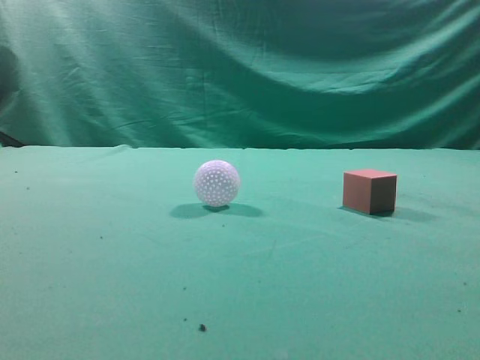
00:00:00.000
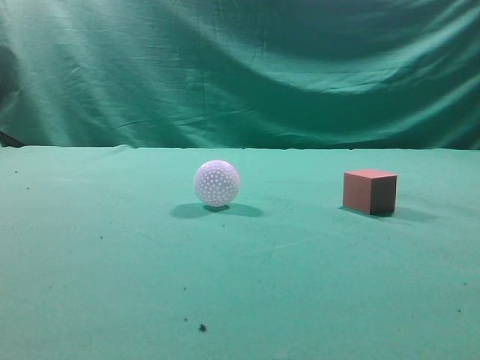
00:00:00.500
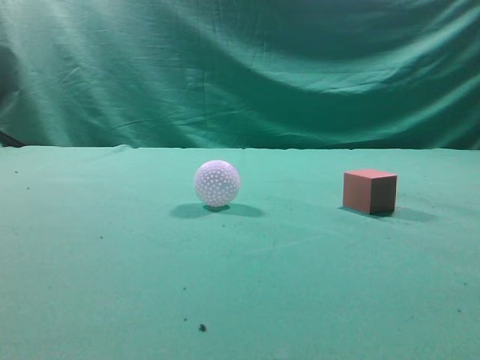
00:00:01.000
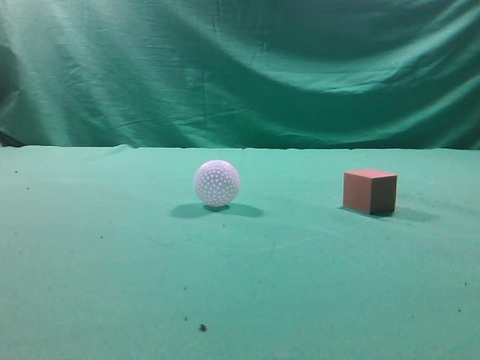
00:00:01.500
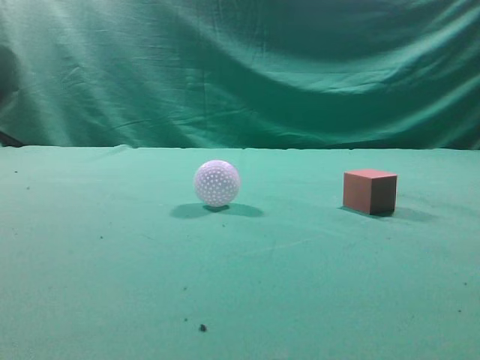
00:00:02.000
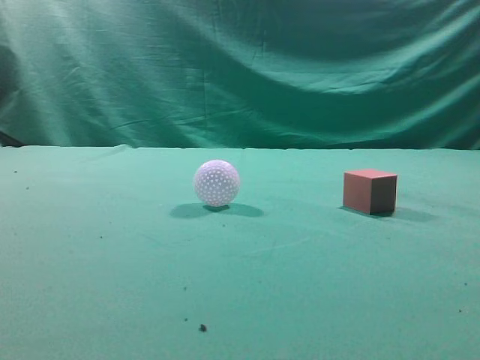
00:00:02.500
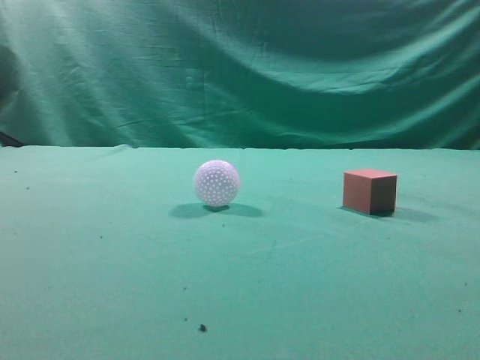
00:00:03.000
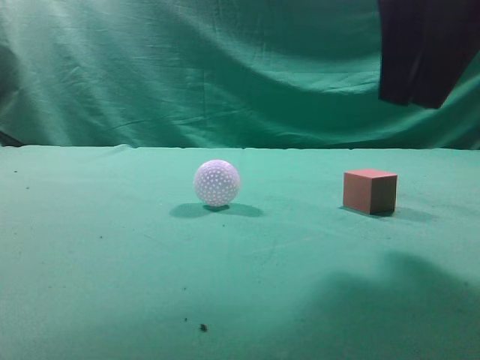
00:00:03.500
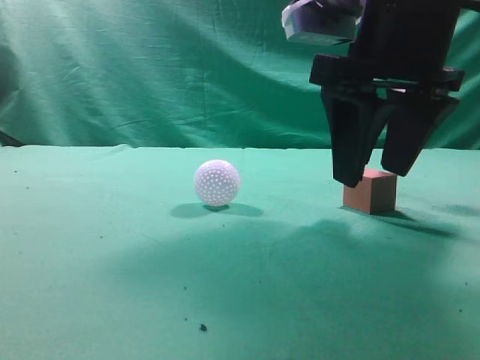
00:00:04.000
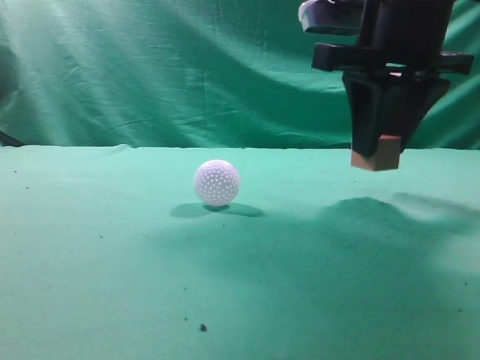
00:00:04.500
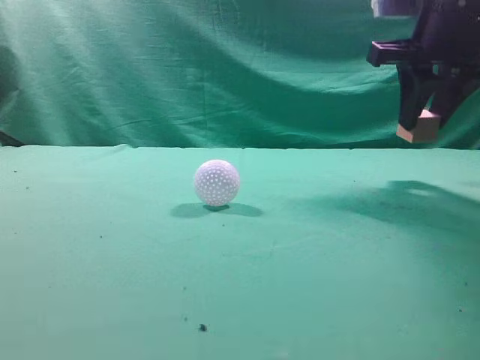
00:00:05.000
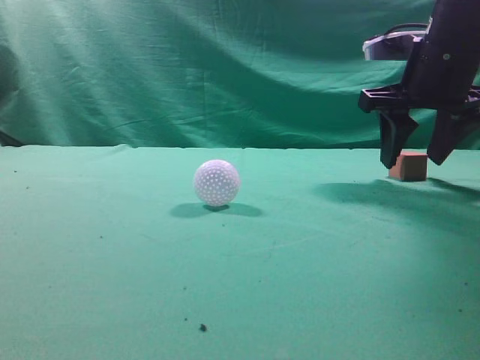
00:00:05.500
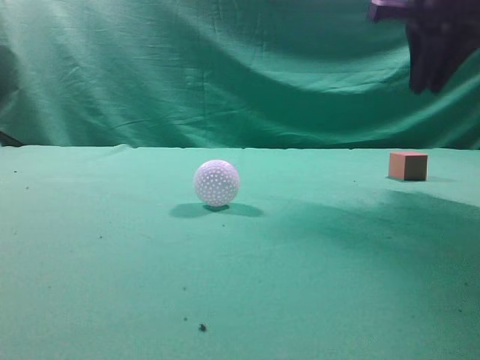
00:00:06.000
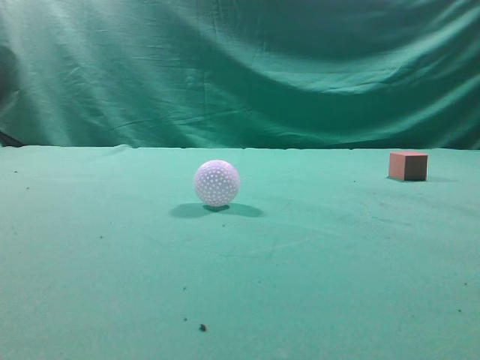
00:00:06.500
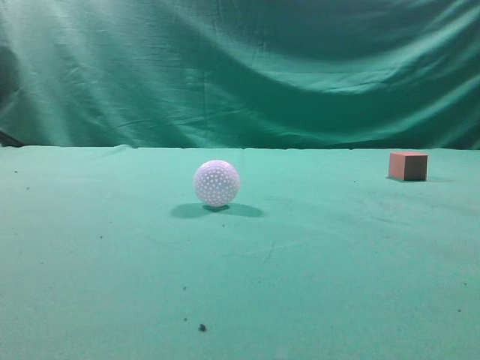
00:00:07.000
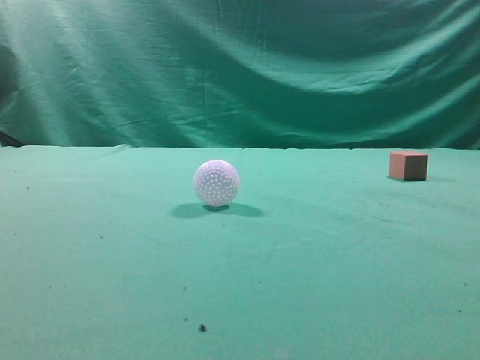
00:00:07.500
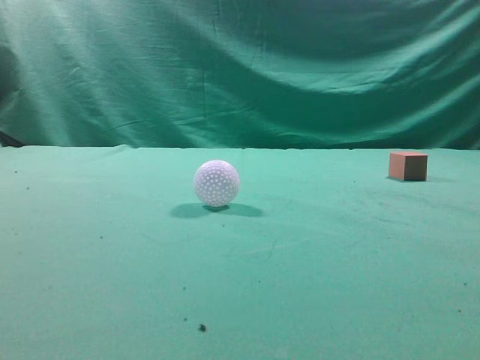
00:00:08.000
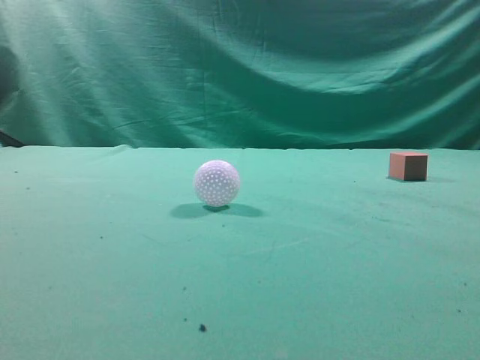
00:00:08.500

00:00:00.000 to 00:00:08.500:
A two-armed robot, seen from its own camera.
Task of the whole recording: pick up the cube block and place it in another position on the table.
Step, 00:00:00.000 to 00:00:04.000: Pick up the small cube.
Step, 00:00:04.500 to 00:00:05.500: Place the small cube on the ahead of the table.
00:00:02.000 to 00:00:04.000: The right gripper shifts roughly 30 cm forward, to the left and downward, and opens up.
00:00:04.000 to 00:00:06.500: The right gripper is displaced upward and to the right by some 20 cm, and closes its fingers.
